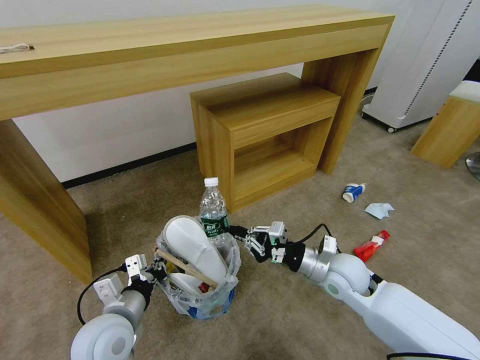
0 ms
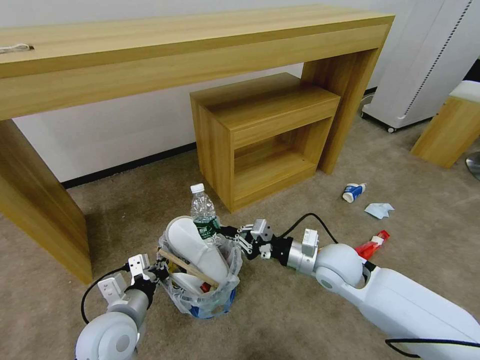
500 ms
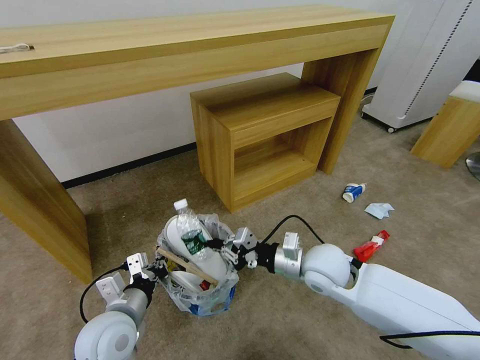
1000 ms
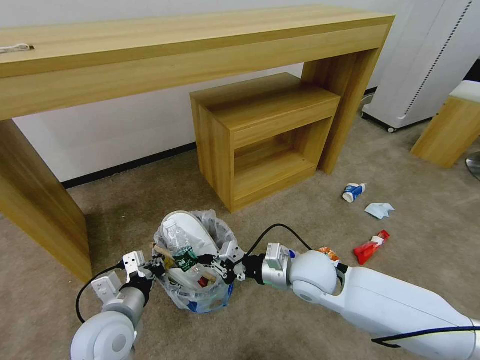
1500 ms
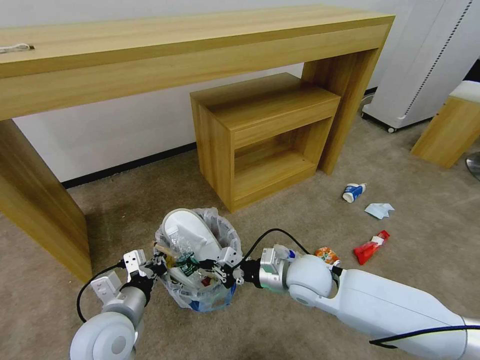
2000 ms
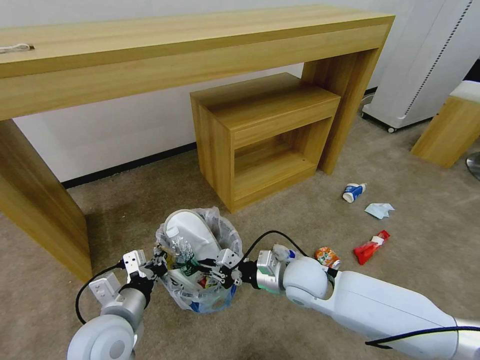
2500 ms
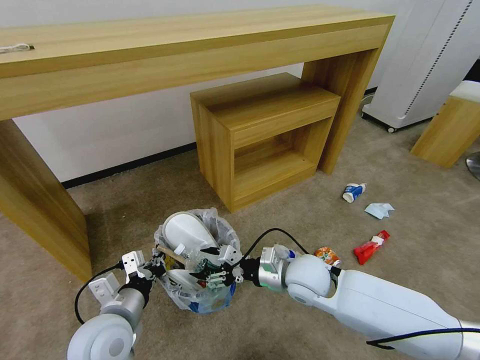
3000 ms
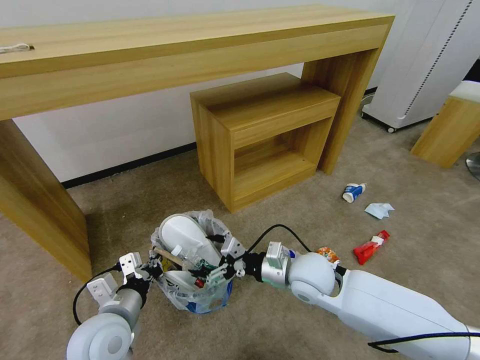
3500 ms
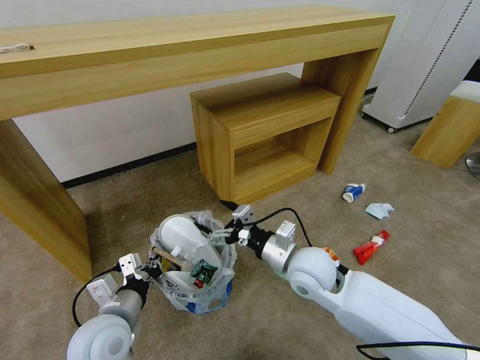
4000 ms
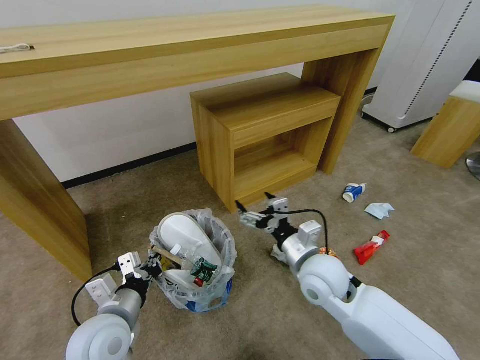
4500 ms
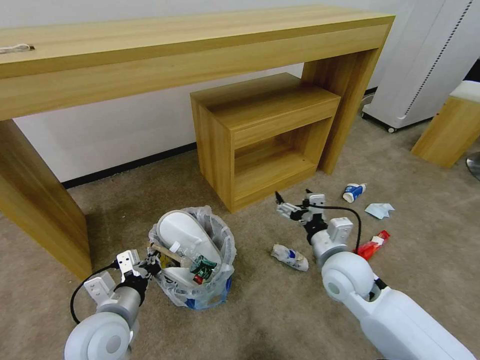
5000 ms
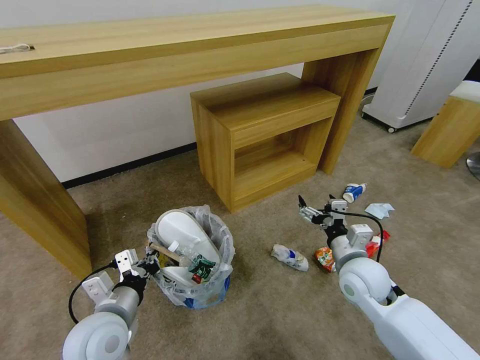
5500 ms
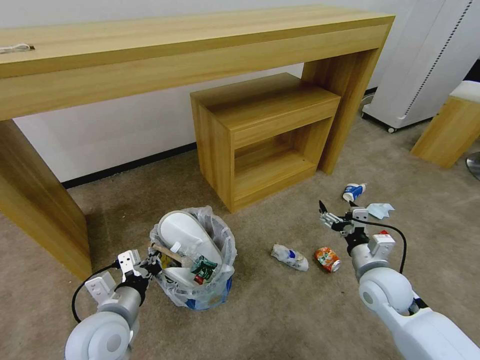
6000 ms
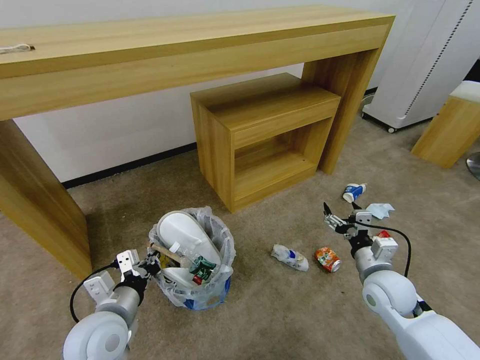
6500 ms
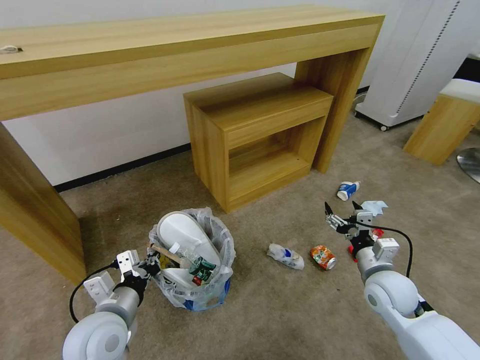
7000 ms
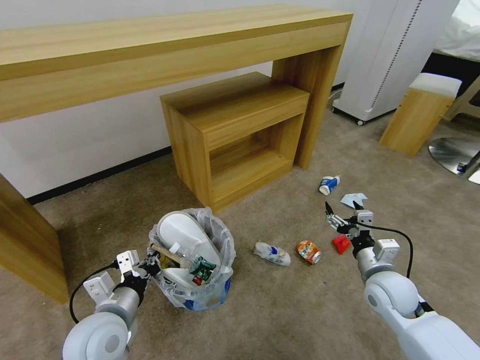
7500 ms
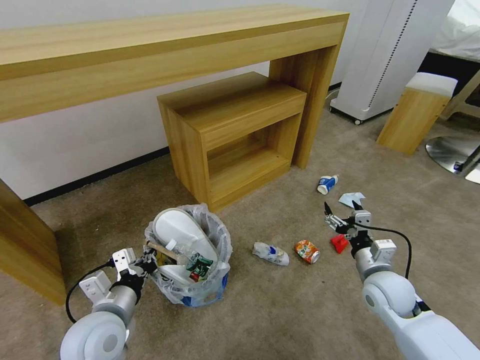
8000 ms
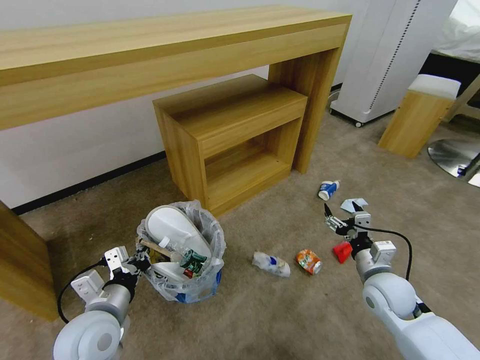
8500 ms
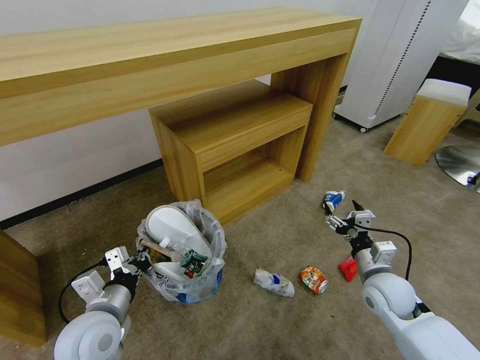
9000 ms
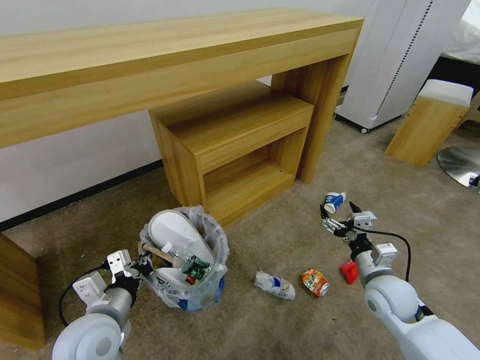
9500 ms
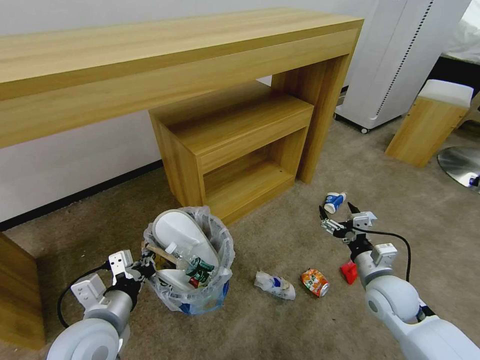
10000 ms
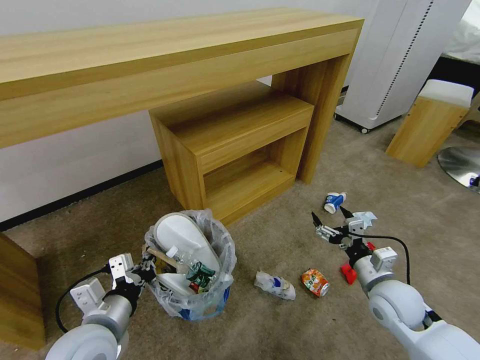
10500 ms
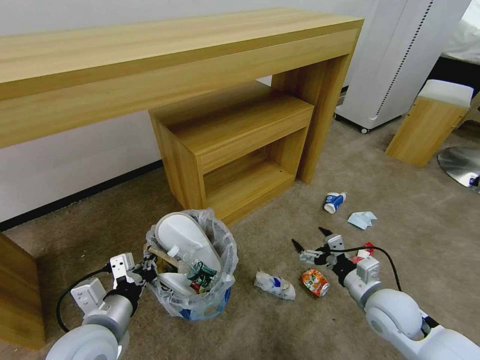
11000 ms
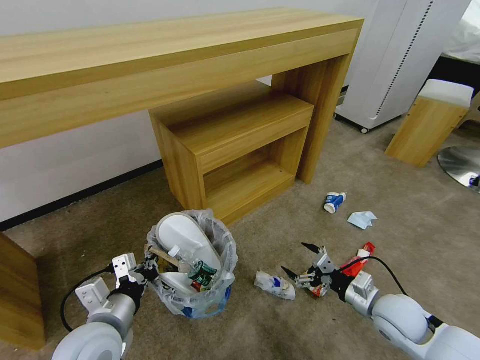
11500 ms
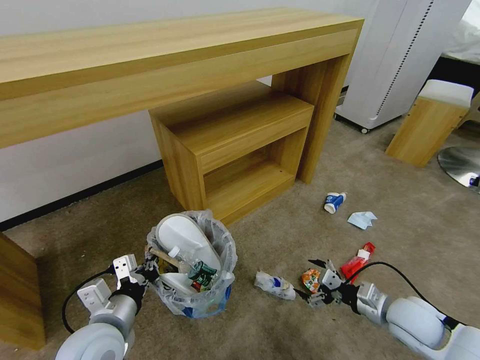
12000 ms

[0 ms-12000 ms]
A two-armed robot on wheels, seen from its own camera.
Task of the whole recording: Pick up the trash bin and place the garbage on the floor into it.
0 ms to 2000 ms: The right gripper goes approximately 10 cm to the left.
2000 ms to 4000 ms: The right gripper opens its fingers.
4000 ms to 6000 ms: The right gripper goes roughly 15 cm to the right.
10000 ms to 12000 ms: The right gripper shifts by approximately 5 cm.

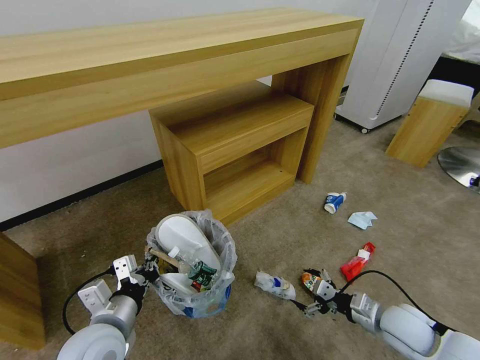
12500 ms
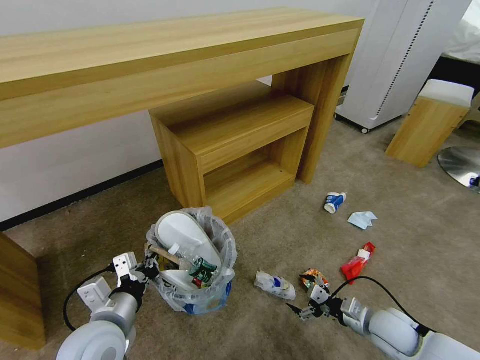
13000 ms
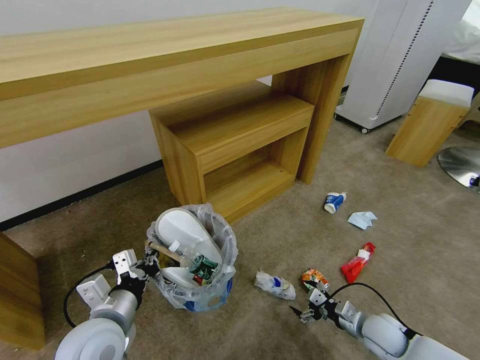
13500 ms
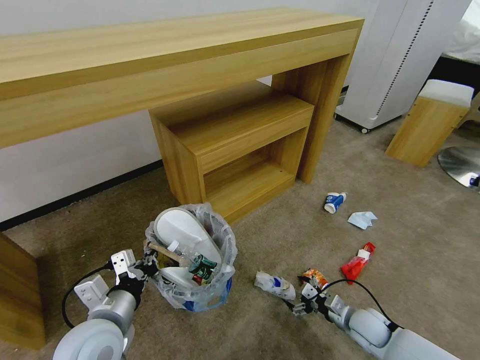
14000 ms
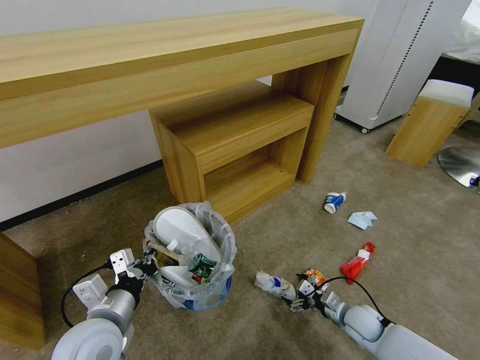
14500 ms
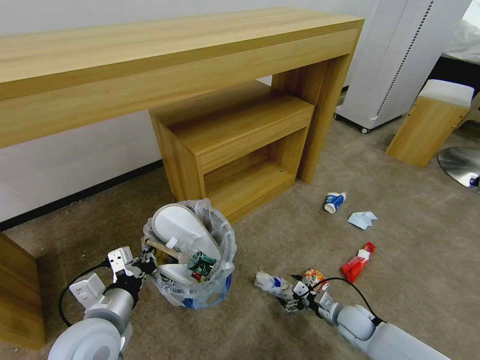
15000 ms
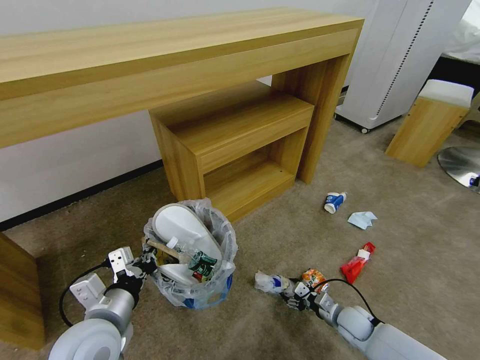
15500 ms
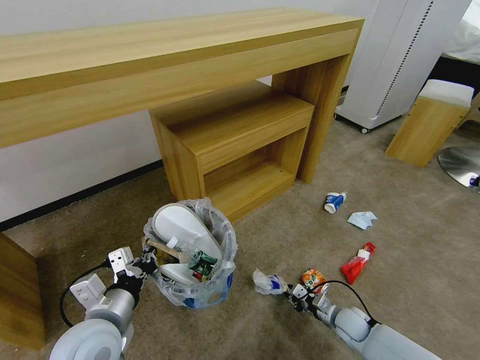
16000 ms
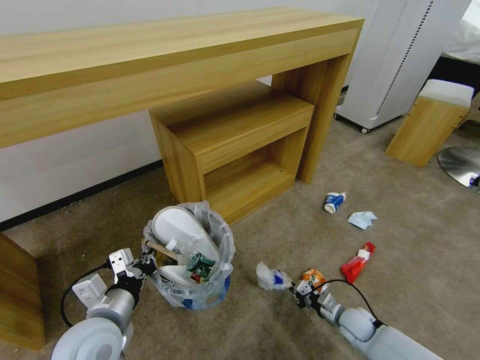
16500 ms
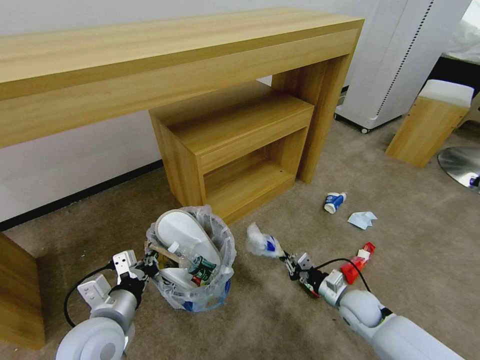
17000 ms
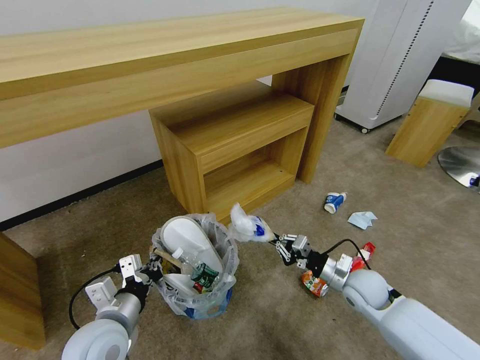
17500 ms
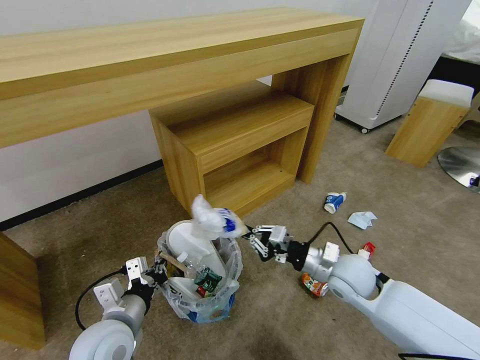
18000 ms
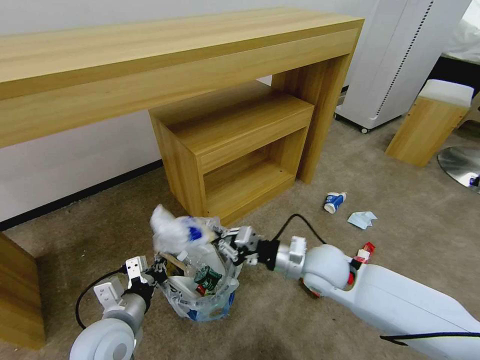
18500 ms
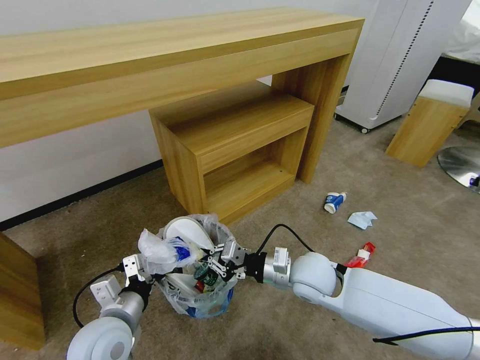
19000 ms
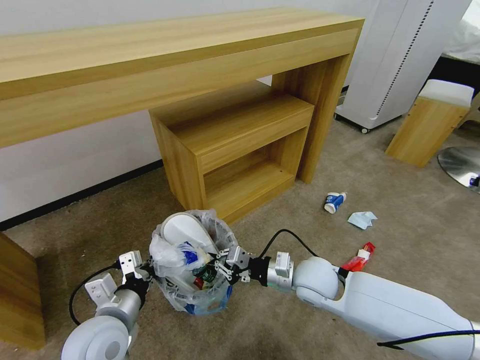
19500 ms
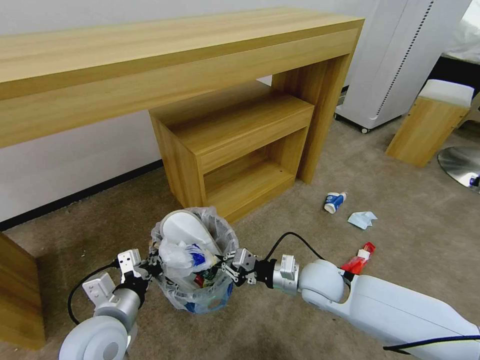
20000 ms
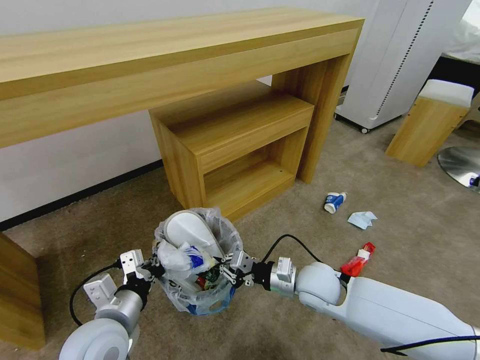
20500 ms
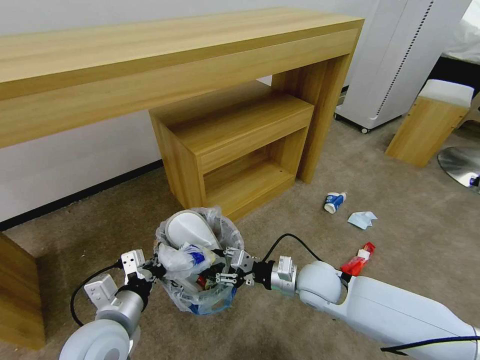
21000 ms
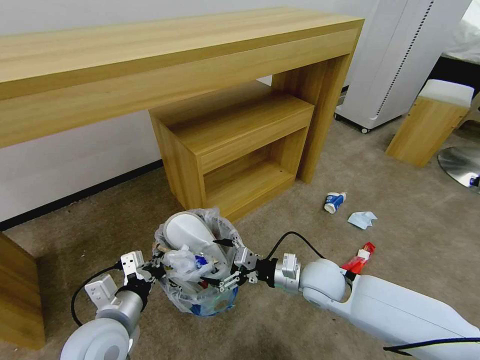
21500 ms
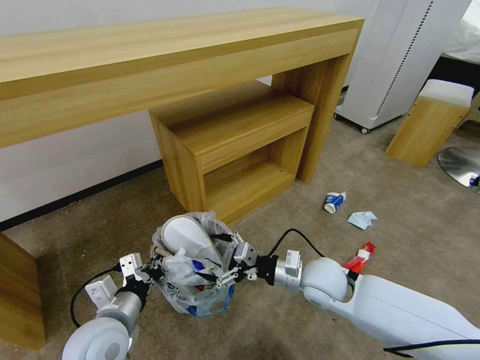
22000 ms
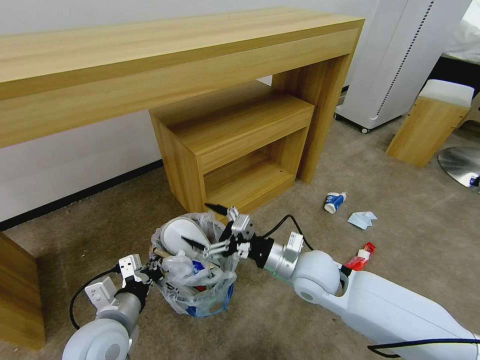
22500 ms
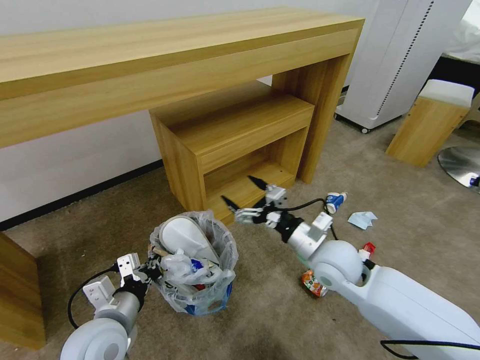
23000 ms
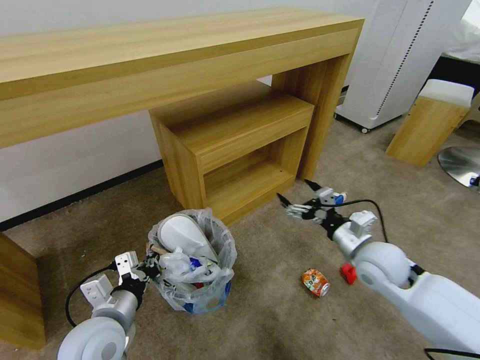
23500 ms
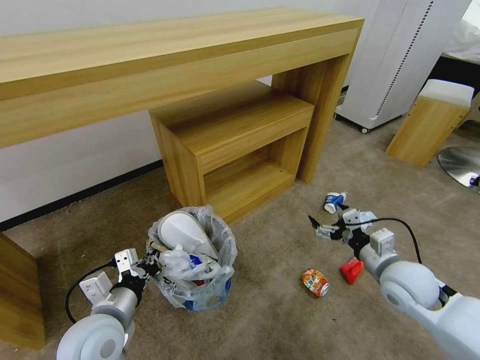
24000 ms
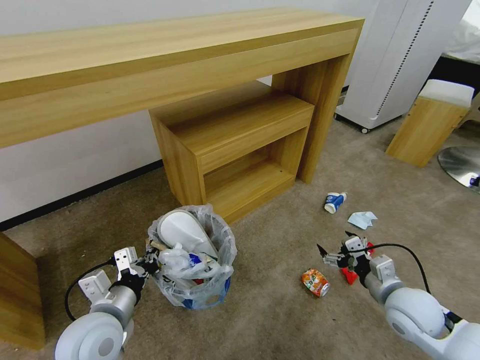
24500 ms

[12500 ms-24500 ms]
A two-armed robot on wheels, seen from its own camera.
Task of the whole recording: Pick up the trash bin and place the garbage on the floor into it.
12500 ms to 14500 ms: The right gripper heads downward, covering roughly 15 cm.
14500 ms to 16500 ms: The right gripper closes.
16500 ms to 18500 ms: The right gripper is displaced upward and to the left by roughly 30 cm.
18500 ms to 20500 ms: The right gripper moves downward, about 5 cm.
20500 ms to 22500 ms: The right gripper travels upward by some 5 cm, and opens.
22500 ms to 24500 ms: The right gripper heads to the right, covering some 20 cm.

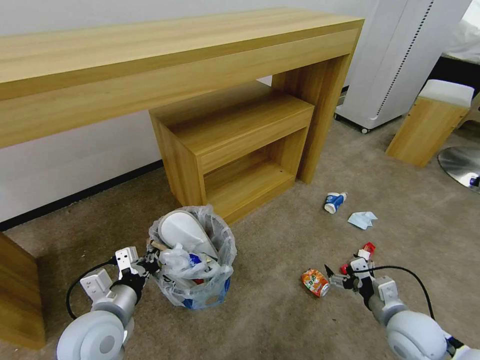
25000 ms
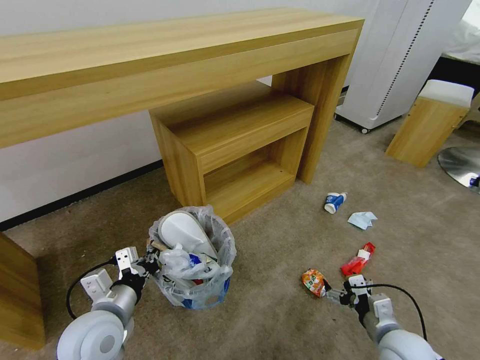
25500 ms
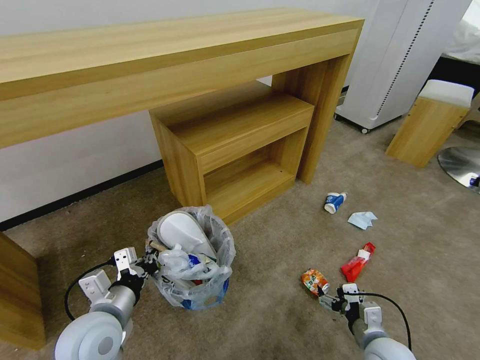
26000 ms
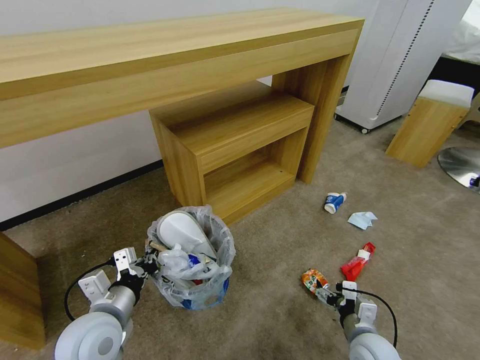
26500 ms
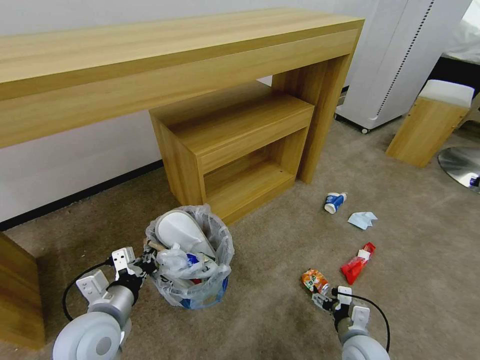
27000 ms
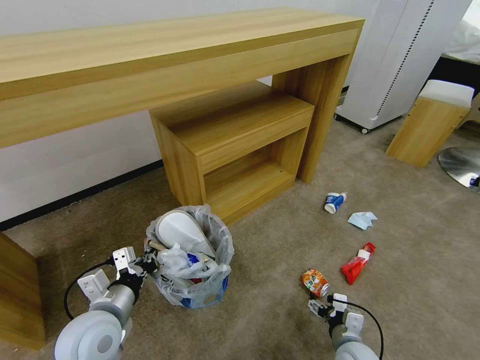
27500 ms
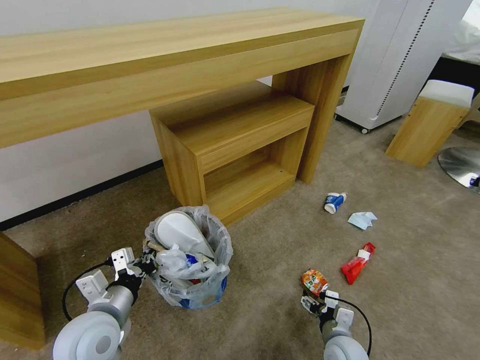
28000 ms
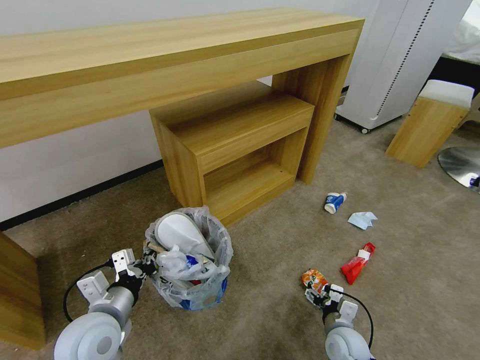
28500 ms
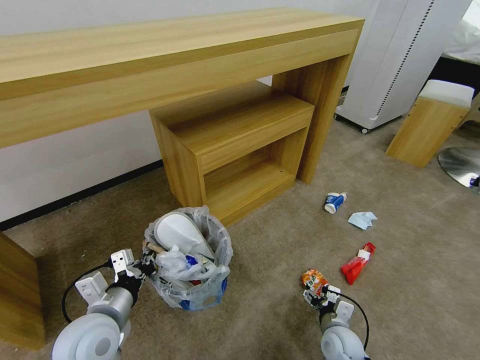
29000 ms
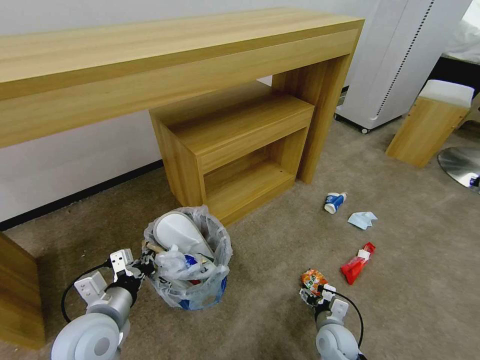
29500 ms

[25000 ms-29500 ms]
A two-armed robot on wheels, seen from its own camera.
Task of the whole recording: Pick up the trash bin and place the garbage on the floor into it.
25000 ms to 27000 ms: The right gripper is displaced downward and to the left by about 10 cm.
27000 ms to 29500 ms: The right gripper travels downward by some 5 cm.
